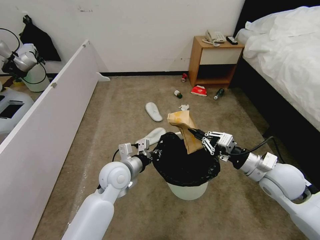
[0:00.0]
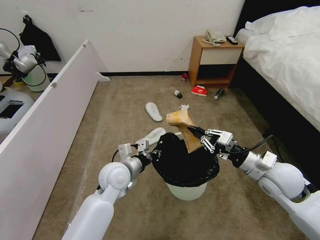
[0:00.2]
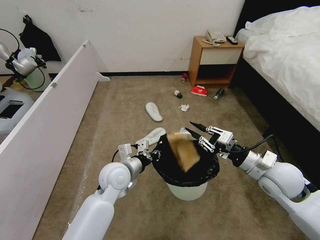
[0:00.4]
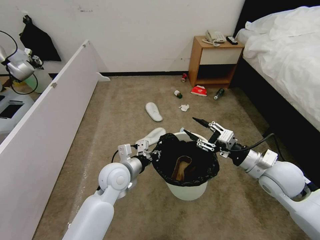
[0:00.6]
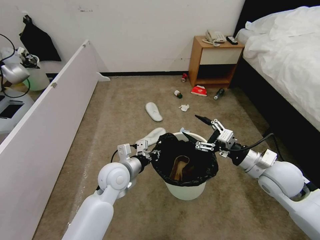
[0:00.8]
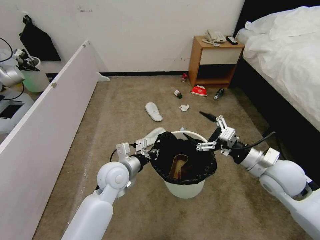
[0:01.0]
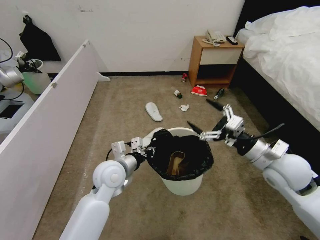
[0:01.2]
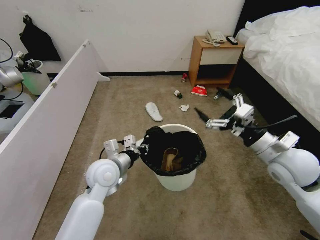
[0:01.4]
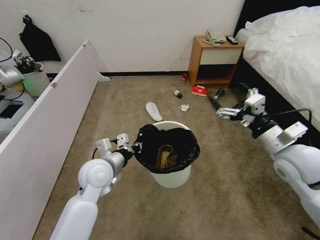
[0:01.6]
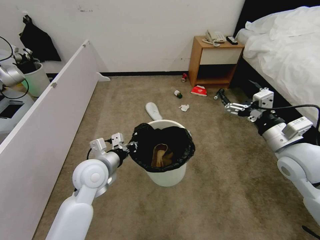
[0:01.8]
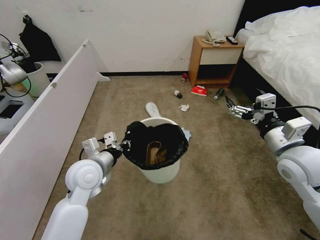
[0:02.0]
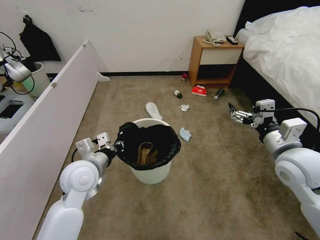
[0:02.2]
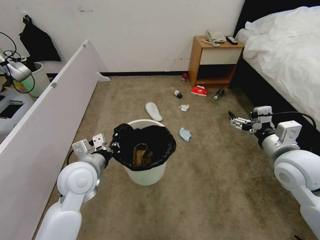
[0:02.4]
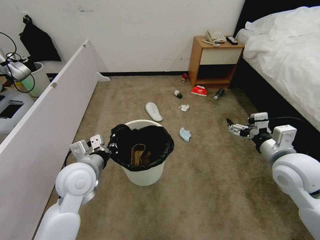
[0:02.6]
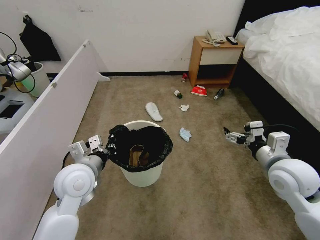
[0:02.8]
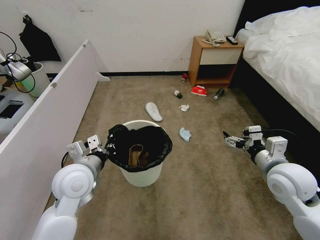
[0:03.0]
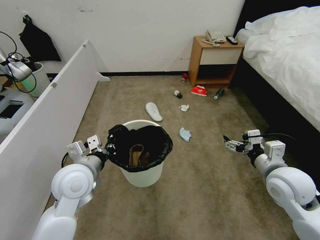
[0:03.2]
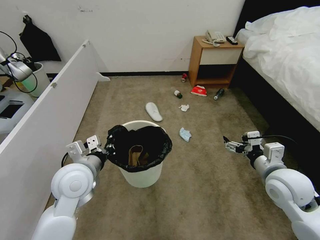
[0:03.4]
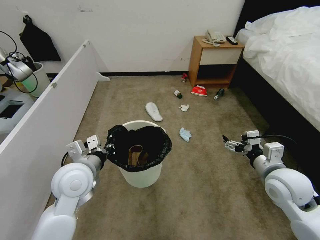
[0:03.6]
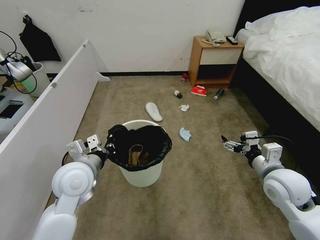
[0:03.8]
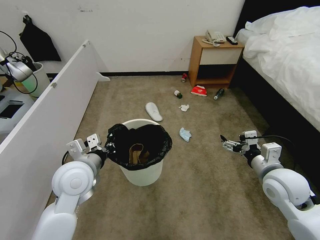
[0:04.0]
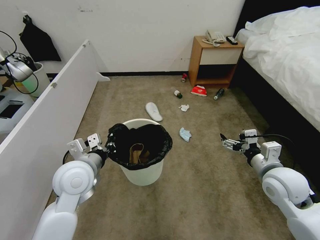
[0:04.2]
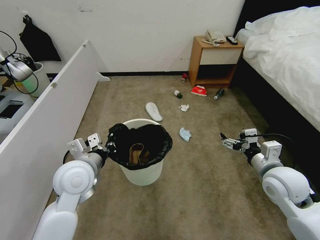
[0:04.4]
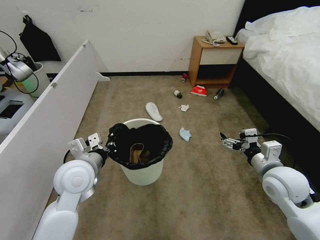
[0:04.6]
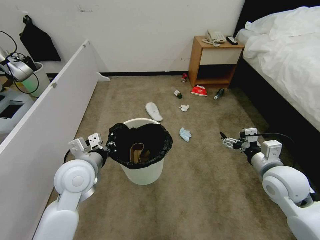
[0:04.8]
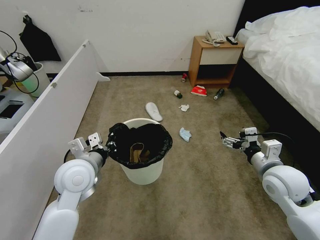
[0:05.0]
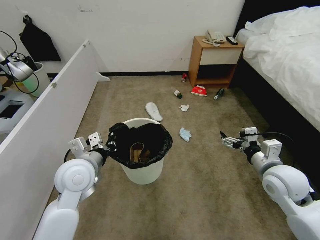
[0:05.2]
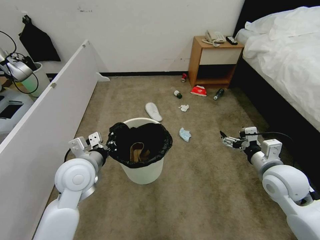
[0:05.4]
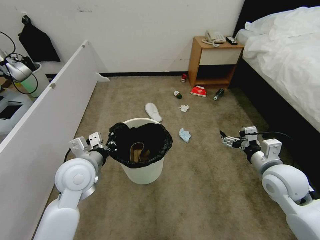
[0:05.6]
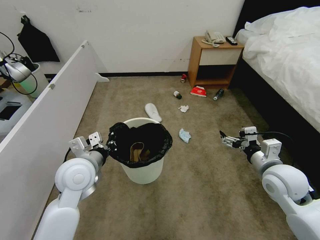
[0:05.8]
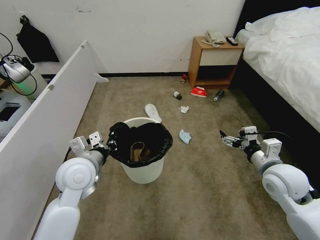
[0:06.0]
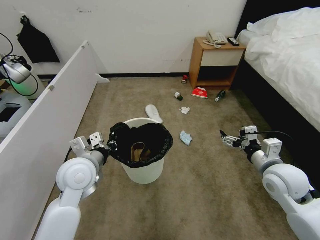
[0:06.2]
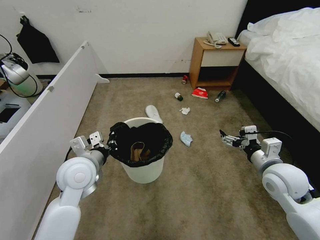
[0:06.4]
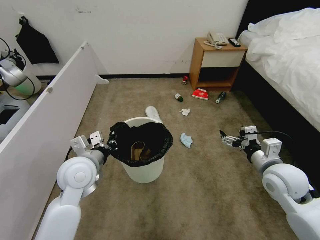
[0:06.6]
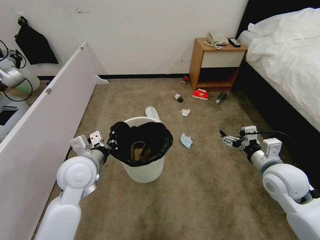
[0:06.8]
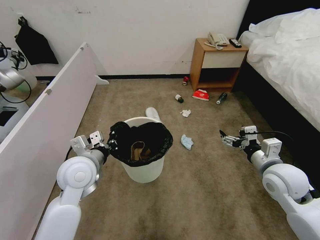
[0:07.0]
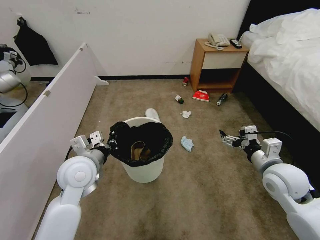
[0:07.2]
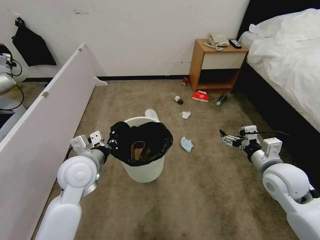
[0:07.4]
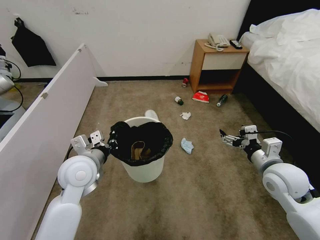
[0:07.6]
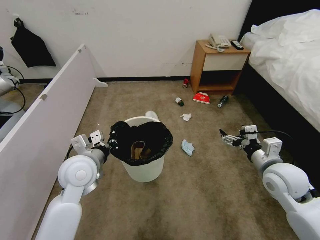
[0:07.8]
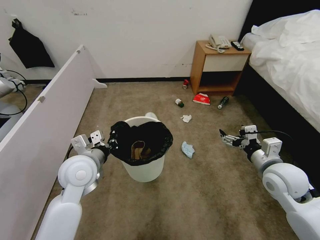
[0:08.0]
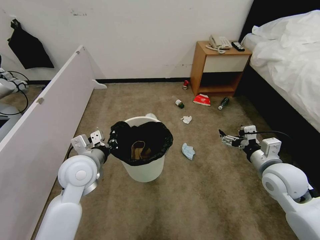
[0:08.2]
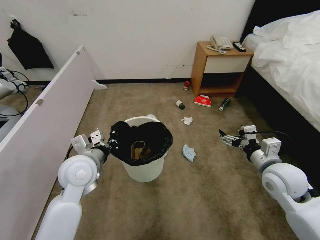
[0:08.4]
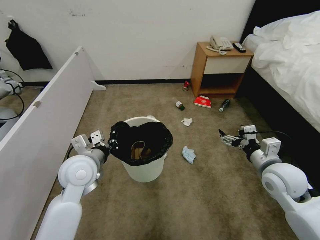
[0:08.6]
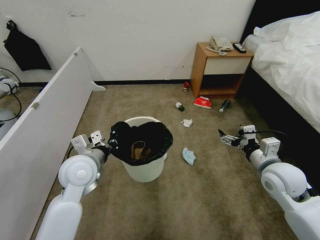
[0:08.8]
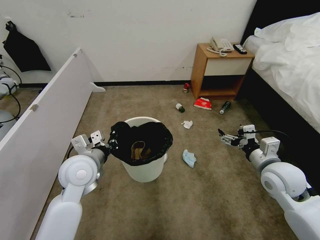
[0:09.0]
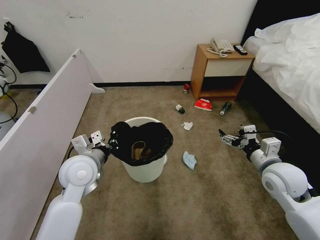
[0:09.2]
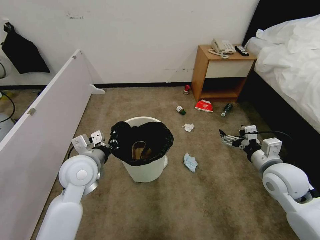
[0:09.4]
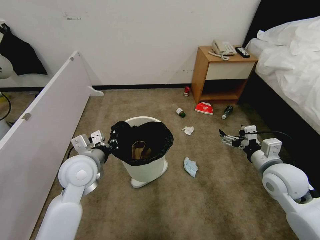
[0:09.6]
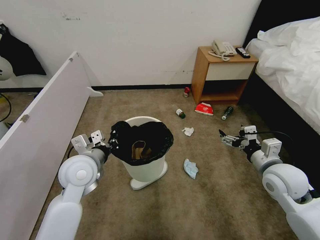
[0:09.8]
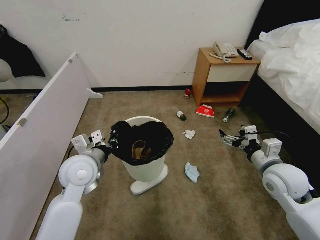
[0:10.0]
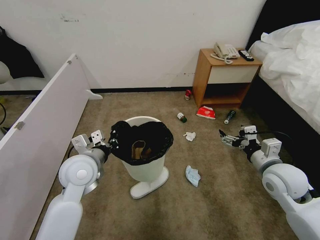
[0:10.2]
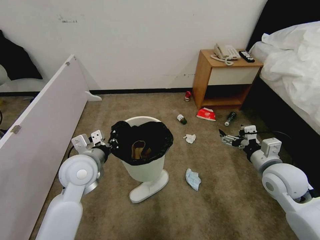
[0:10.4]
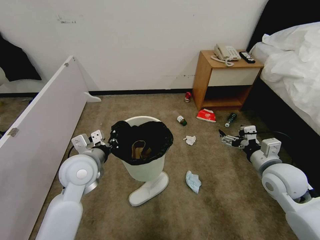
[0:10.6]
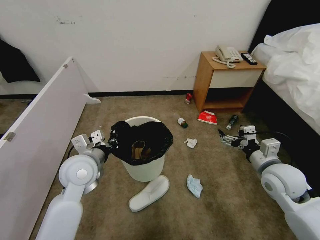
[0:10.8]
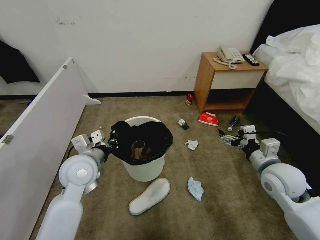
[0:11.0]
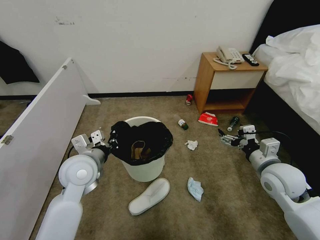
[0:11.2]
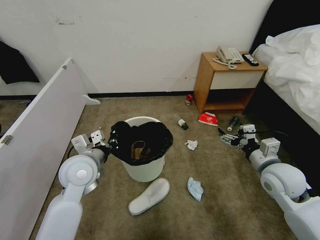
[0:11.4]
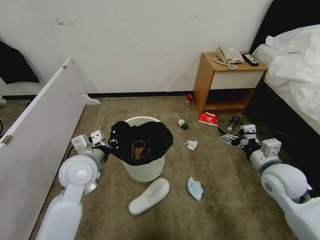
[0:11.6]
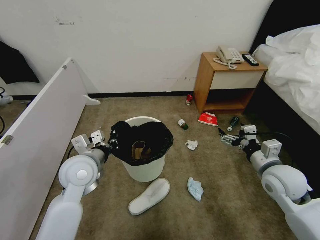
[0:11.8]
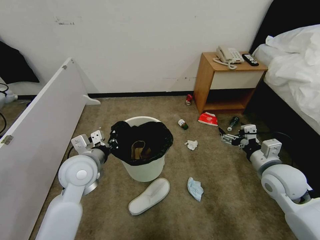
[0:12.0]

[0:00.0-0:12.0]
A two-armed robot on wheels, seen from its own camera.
Task of the whole recording: Pick up the trash bin, then pick up the garbage from the floor and place it into the trash bin.
0:00.0 to 0:01.6: The right gripper heads upward, covering approximately 5 cm, and opens up, while the left gripper shifts by about 5 cm.
0:01.6 to 0:03.0: The right gripper moves roughly 5 cm, while the left gripper moves approximately 5 cm.
0:03.0 to 0:04.4: There are only small adjustments of the grippers.
0:04.4 to 0:06.0: The two grippers keep their place.
0:06.0 to 0:10.4: The two grippers keep their place.
0:10.4 to 0:12.0: The two grippers keep their place.

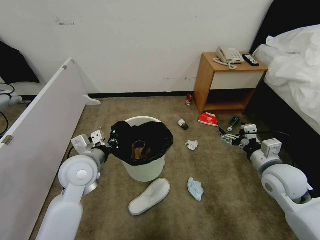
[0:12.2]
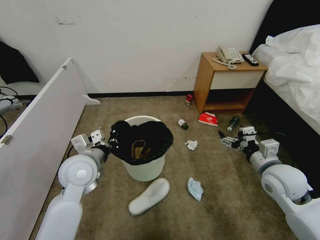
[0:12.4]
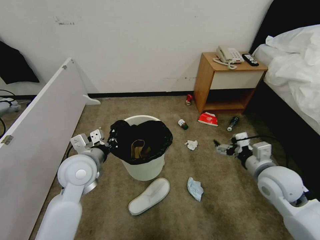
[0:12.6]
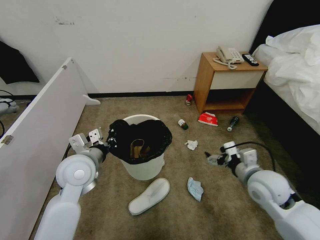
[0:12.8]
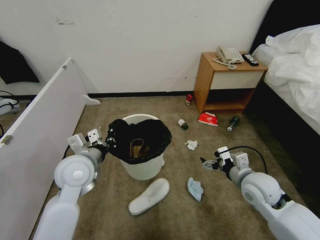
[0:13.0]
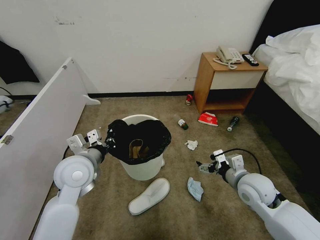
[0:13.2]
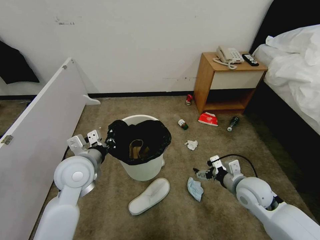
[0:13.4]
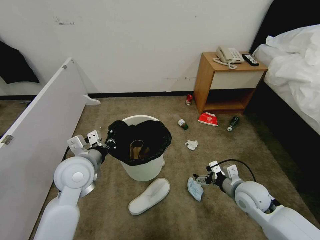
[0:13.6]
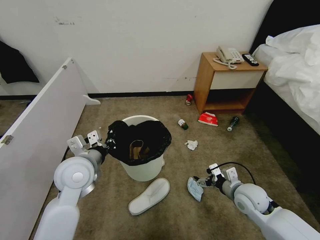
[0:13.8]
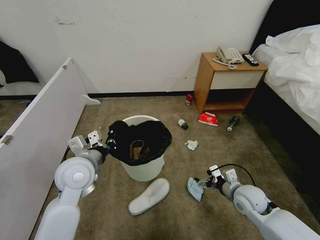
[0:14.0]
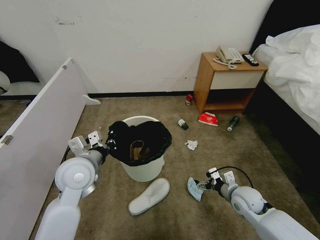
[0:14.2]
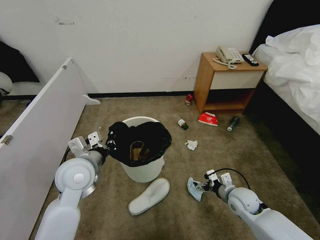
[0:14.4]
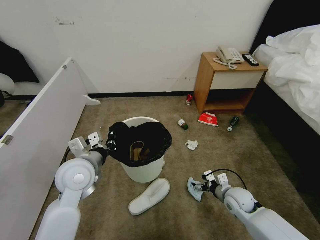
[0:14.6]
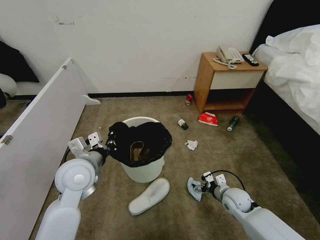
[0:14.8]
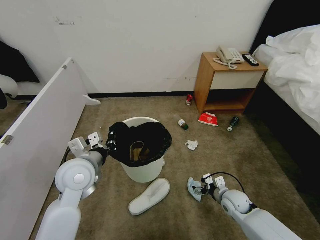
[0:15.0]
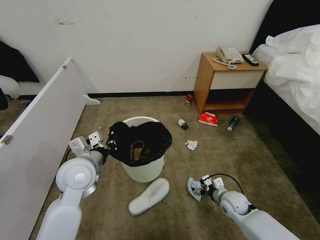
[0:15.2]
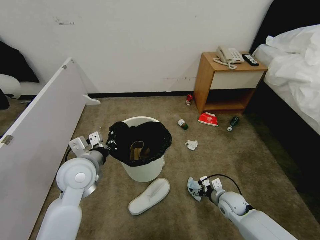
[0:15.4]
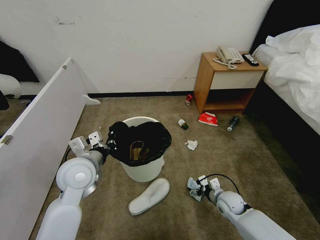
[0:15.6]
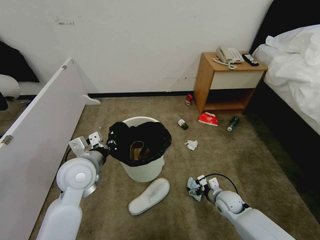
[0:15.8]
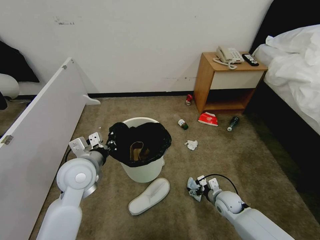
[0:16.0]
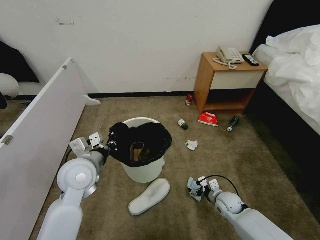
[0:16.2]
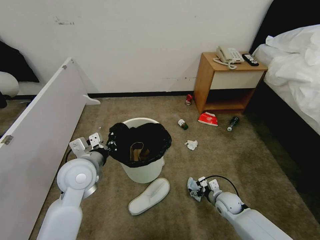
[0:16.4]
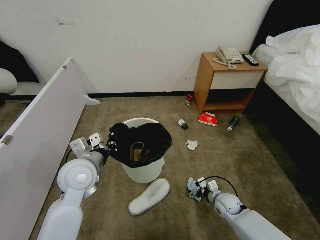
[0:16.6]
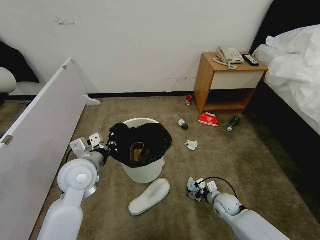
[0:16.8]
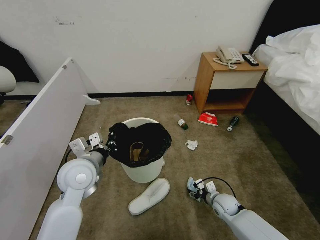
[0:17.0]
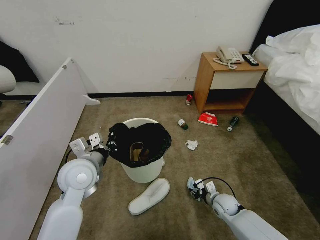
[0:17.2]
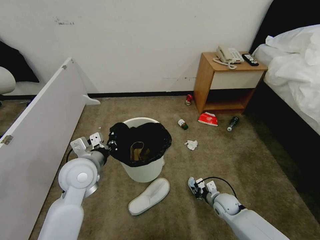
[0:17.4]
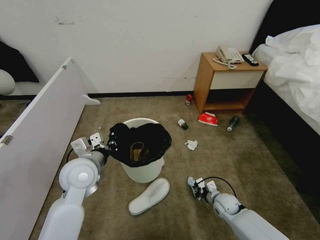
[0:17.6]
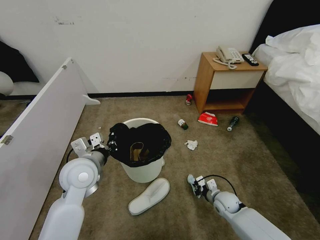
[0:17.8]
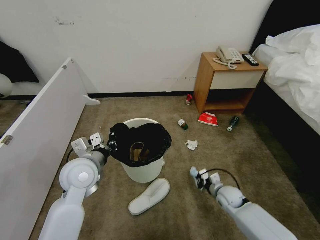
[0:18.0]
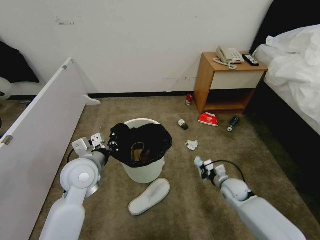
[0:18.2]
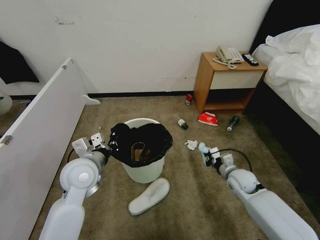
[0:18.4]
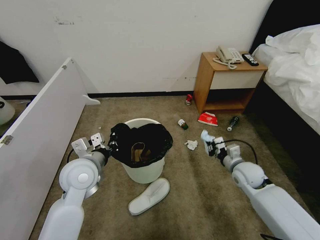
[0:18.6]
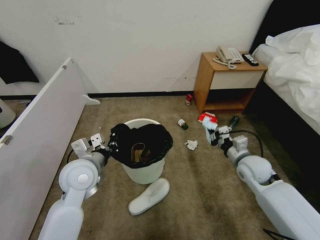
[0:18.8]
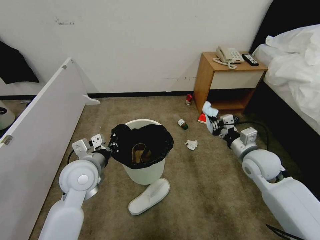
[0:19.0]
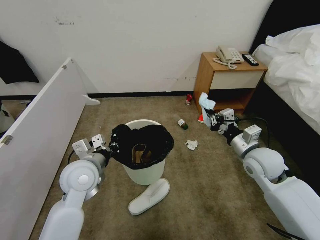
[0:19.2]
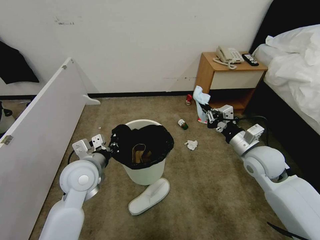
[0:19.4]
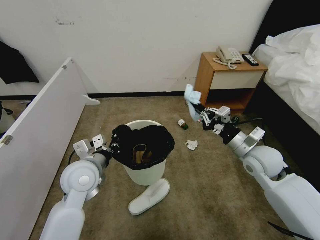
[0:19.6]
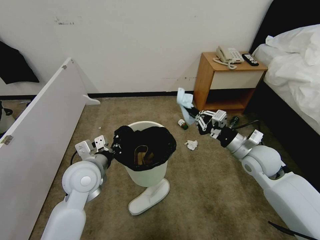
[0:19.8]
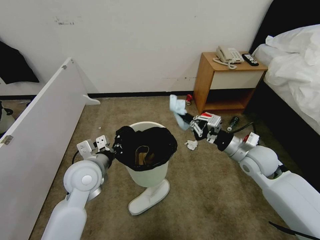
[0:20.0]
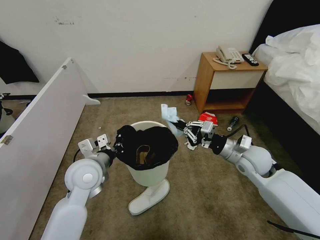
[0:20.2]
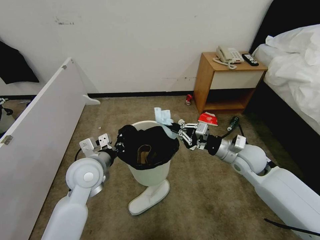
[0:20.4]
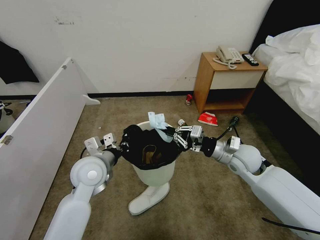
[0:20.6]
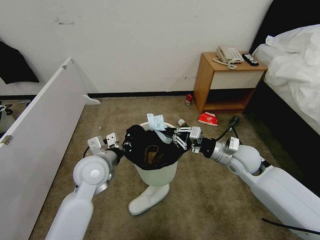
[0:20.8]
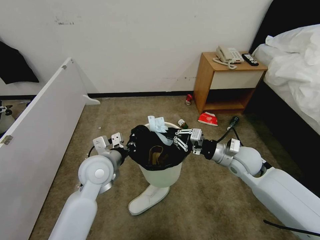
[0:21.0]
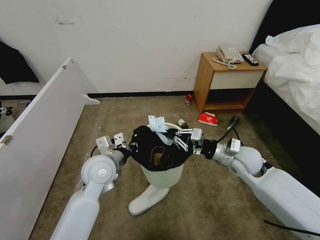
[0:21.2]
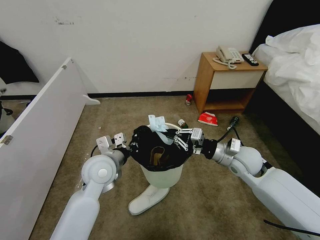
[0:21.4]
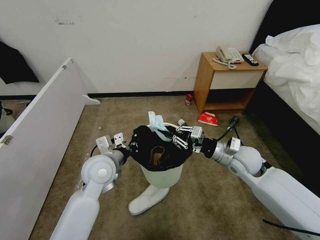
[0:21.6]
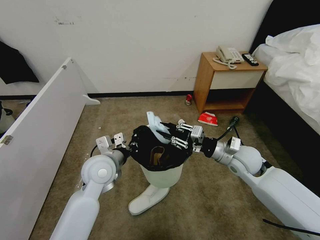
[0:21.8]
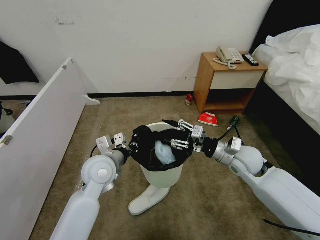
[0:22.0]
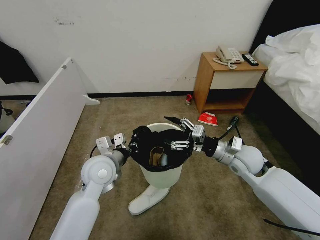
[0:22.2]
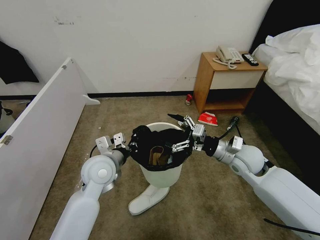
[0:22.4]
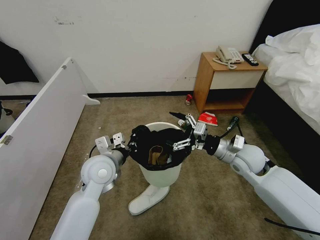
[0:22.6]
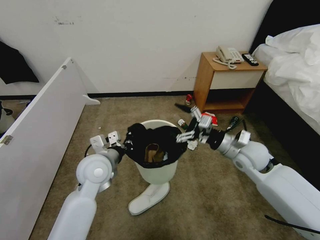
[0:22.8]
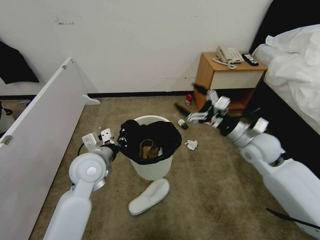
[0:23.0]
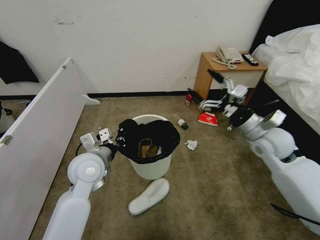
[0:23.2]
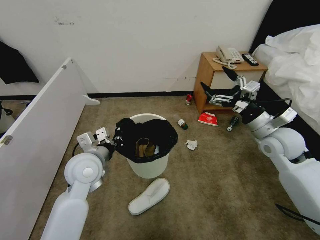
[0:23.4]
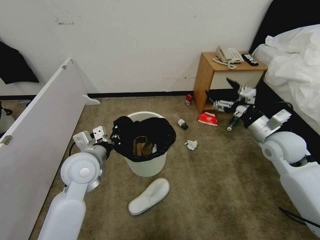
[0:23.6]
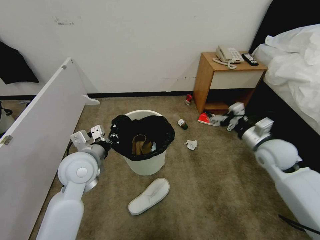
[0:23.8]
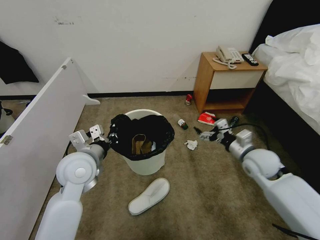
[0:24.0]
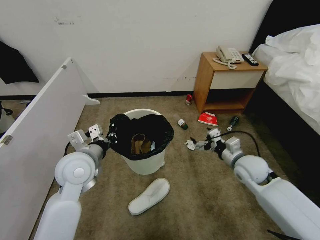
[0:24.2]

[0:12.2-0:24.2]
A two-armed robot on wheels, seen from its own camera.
Task of the whole recording: Pick up the trash bin, then pick up the garbage from the floor and place it into the trash bin.
0:12.2 to 0:13.8: The right gripper moves downward, approximately 10 cm.
0:13.8 to 0:15.2: The right gripper moves downward, roughly 10 cm.
0:15.2 to 0:16.6: The grippers move only a little.
0:16.6 to 0:18.2: The right gripper goes roughly 5 cm upward, and closes up.
0:18.2 to 0:19.8: The right gripper goes approximately 20 cm upward.
0:21.2 to 0:22.6: The right gripper opens.
0:22.6 to 0:24.2: The left gripper shifts by roughly 5 cm.
